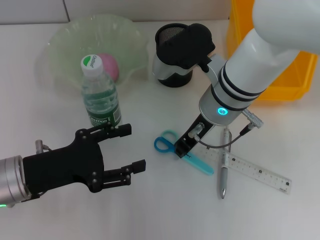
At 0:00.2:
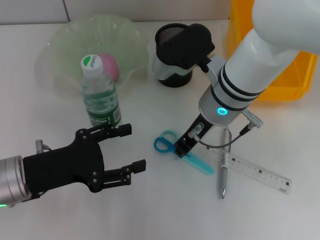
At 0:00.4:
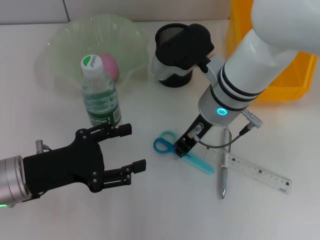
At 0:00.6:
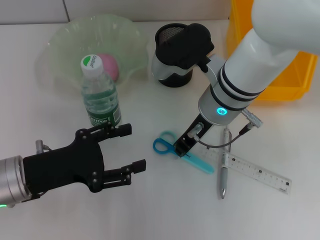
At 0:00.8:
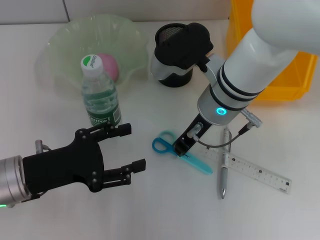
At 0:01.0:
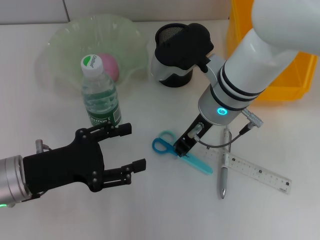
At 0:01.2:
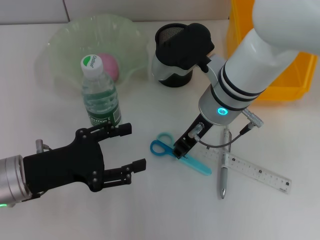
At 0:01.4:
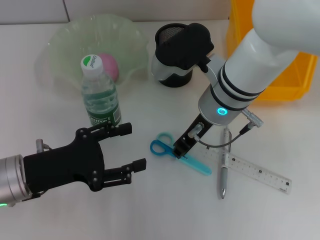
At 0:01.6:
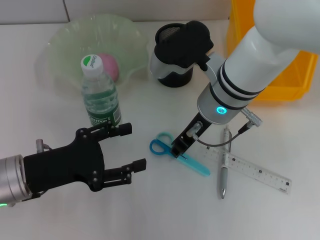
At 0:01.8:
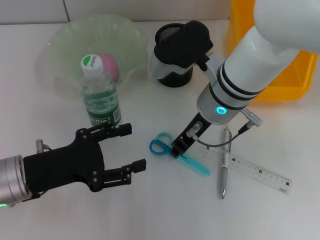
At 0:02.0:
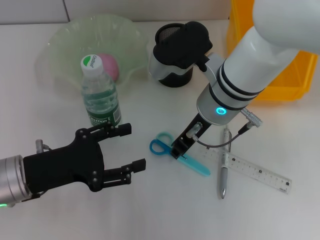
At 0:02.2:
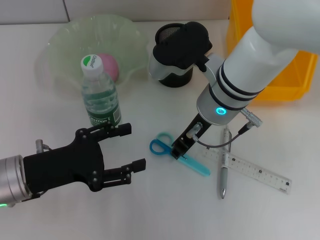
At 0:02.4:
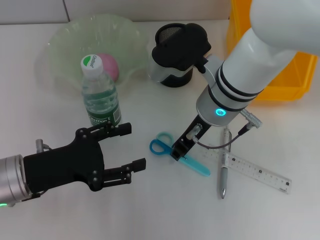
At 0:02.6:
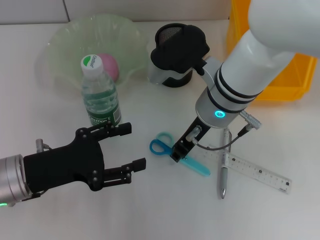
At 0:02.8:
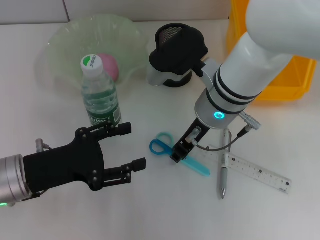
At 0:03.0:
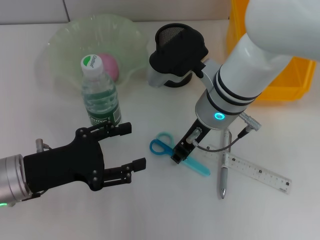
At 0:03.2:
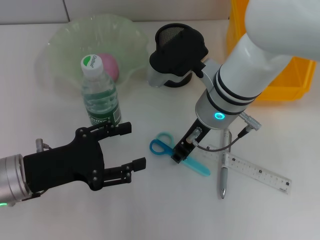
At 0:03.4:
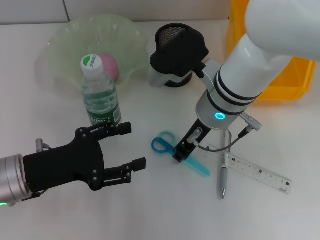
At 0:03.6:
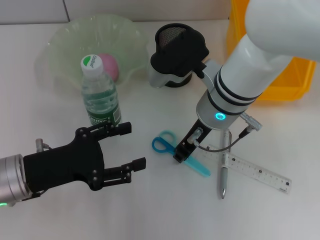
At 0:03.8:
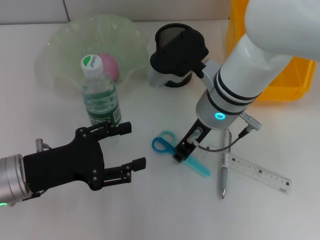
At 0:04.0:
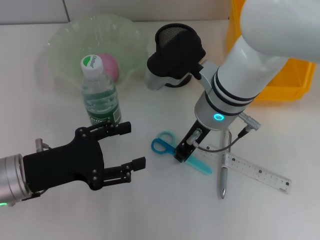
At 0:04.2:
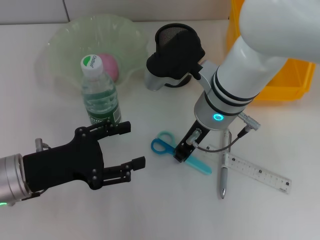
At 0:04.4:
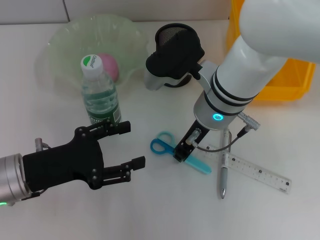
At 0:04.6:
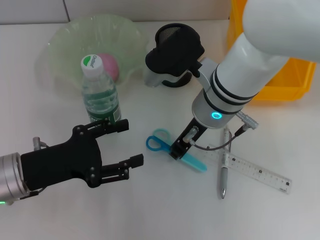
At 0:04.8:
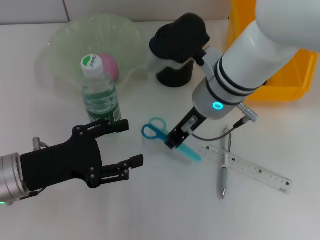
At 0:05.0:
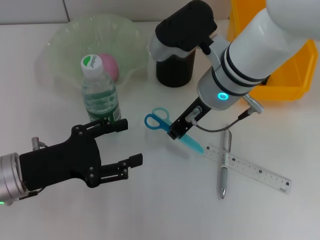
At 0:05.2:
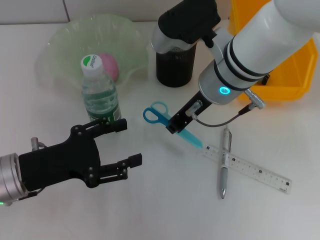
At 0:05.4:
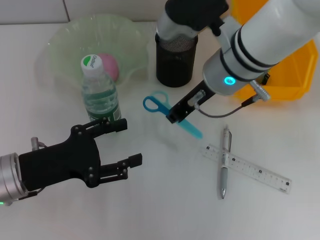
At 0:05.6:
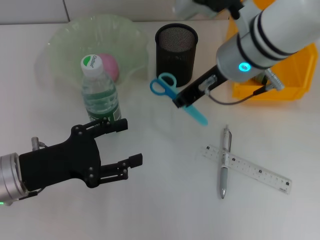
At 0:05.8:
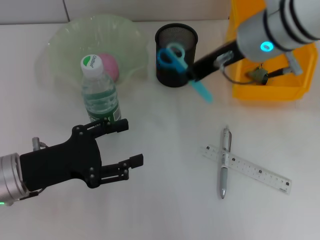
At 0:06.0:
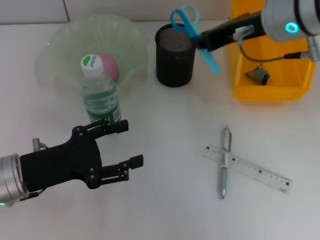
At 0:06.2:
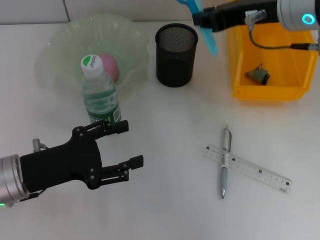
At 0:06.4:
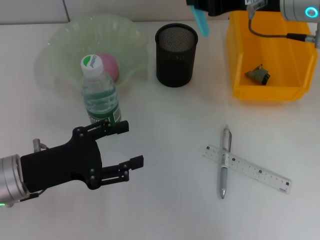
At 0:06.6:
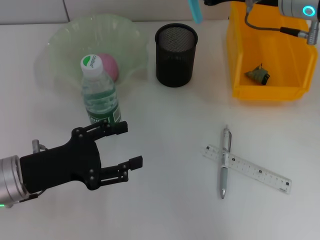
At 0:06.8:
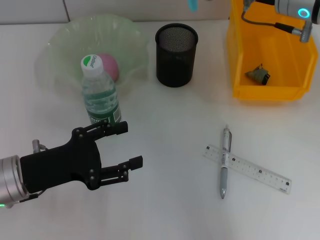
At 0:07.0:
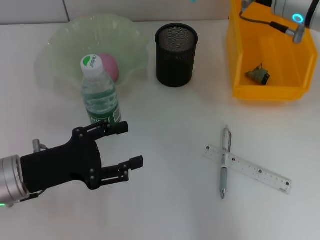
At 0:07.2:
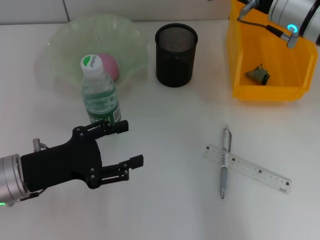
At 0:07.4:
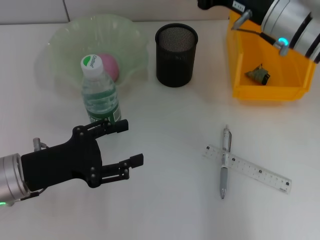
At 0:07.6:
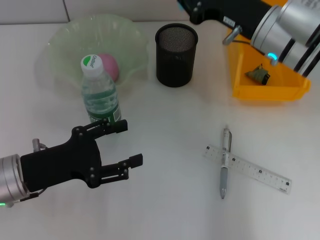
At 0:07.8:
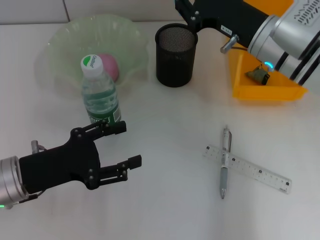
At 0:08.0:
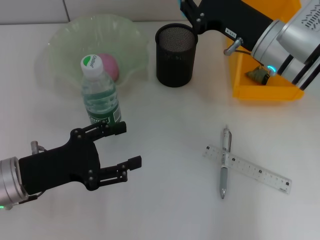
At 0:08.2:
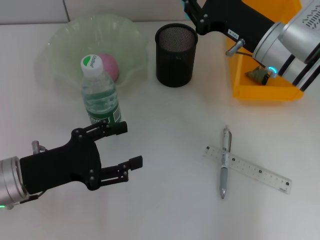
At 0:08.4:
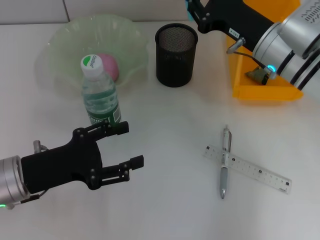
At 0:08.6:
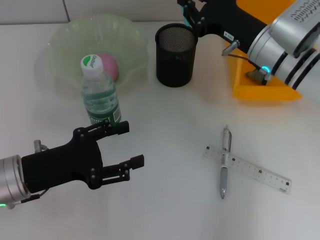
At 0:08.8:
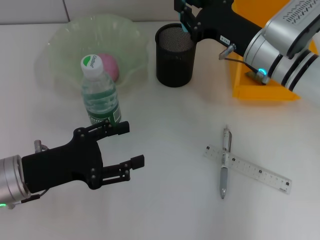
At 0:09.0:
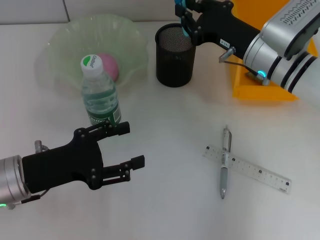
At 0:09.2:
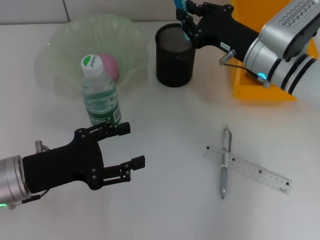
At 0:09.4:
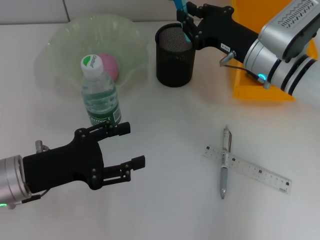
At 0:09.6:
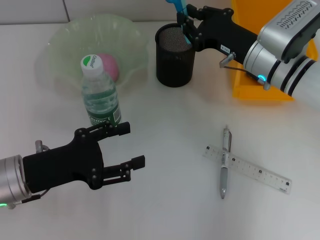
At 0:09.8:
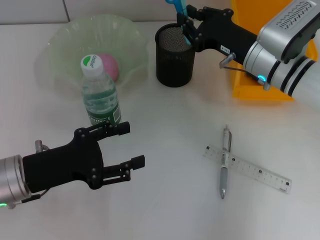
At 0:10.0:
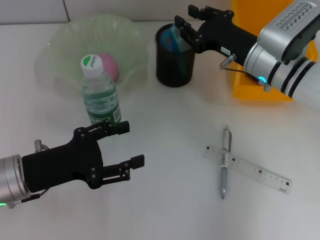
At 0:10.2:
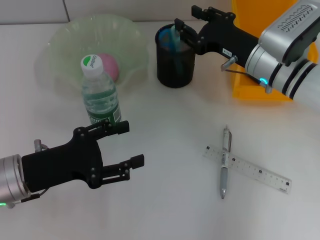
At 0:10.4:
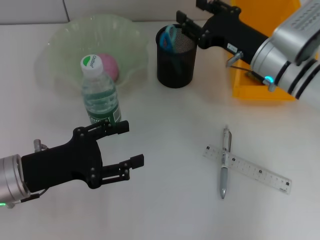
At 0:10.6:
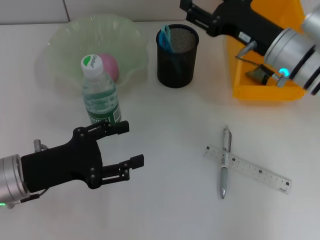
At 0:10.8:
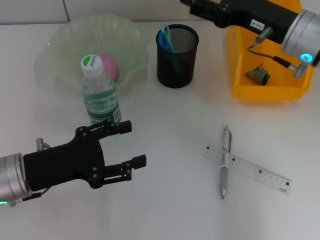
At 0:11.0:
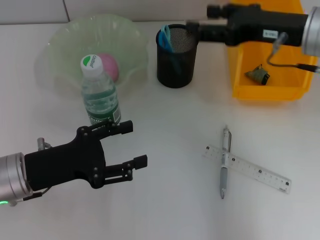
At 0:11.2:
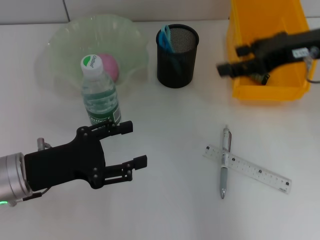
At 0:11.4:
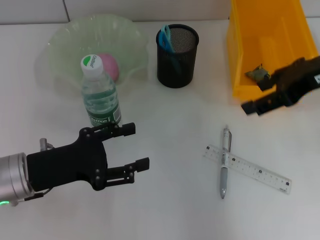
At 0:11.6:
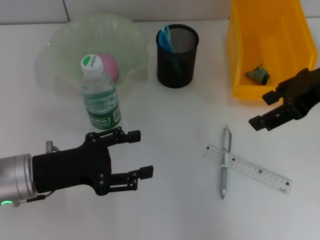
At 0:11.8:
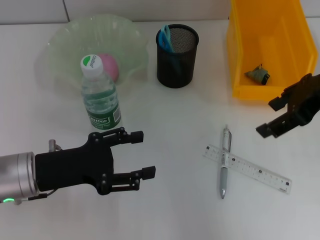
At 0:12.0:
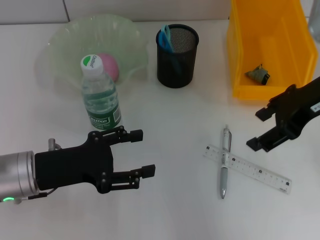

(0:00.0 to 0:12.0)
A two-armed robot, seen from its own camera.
Step, 0:00.0 - 0:03.8: Grab the blue scissors with the right hand.
Step, 0:04.2 - 0:10.4: Place the blue scissors into the pen holder with the right hand.
0:00.0 - 0:03.0: The two grippers keep their place.
0:03.0 - 0:04.4: Neither gripper changes place.
0:04.4 - 0:06.0: The right gripper is displaced upward and to the right by some 15 cm.
0:06.0 - 0:07.6: The right gripper travels downward by roughly 10 cm.
0:07.6 - 0:09.0: The right gripper ends up some 5 cm from where it was.
0:09.0 - 0:10.4: The right gripper opens up.
0:10.4 - 0:12.0: The right gripper moves upward and backward, about 15 cm, and opens.

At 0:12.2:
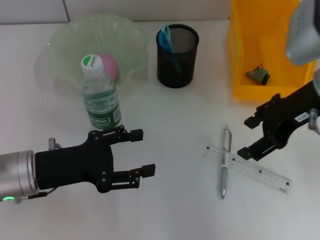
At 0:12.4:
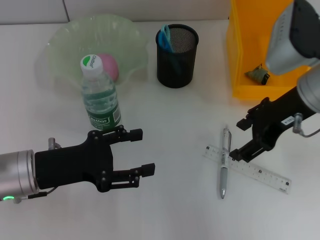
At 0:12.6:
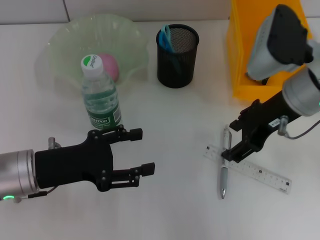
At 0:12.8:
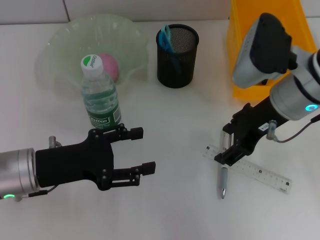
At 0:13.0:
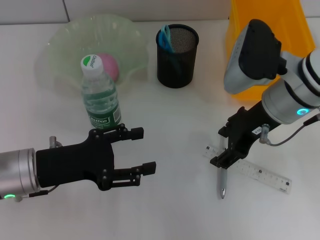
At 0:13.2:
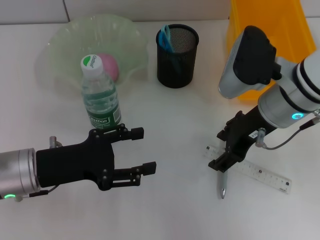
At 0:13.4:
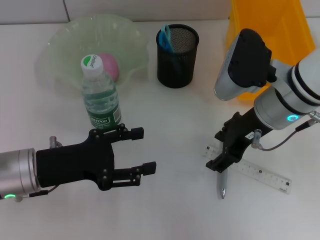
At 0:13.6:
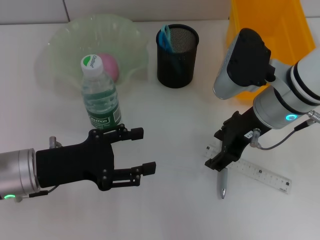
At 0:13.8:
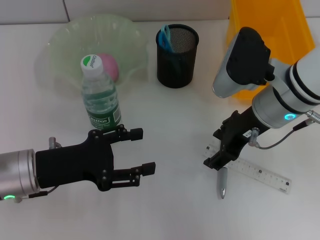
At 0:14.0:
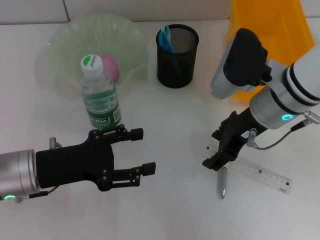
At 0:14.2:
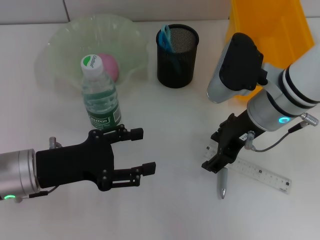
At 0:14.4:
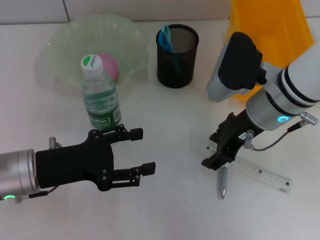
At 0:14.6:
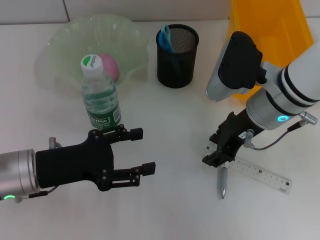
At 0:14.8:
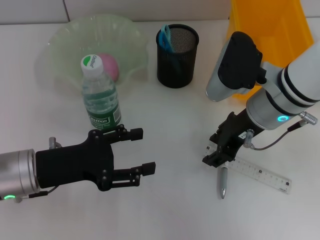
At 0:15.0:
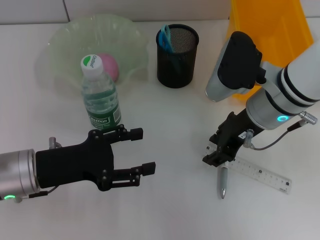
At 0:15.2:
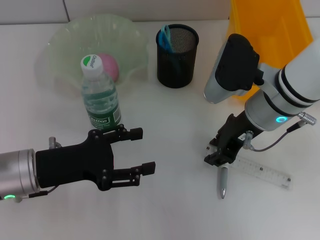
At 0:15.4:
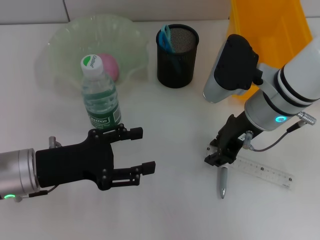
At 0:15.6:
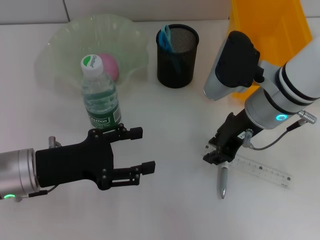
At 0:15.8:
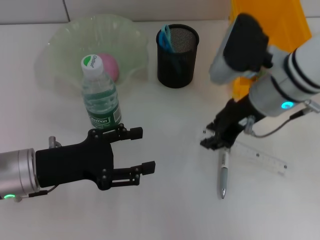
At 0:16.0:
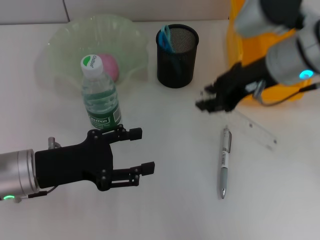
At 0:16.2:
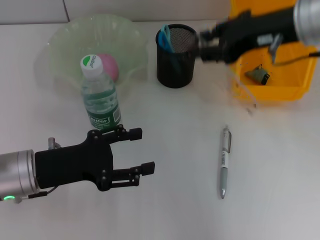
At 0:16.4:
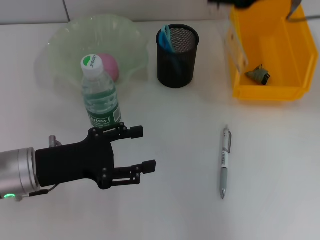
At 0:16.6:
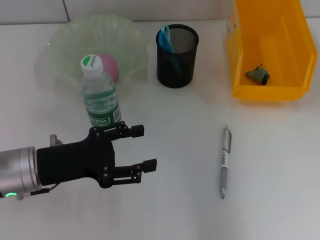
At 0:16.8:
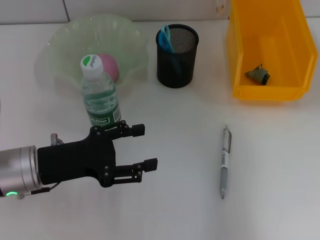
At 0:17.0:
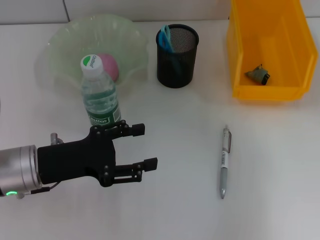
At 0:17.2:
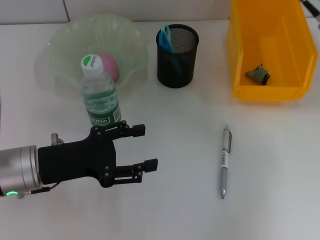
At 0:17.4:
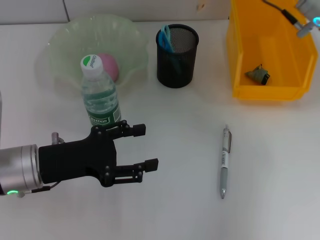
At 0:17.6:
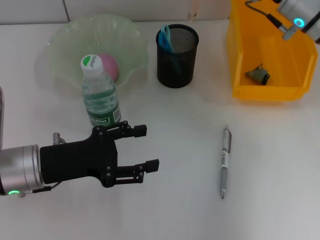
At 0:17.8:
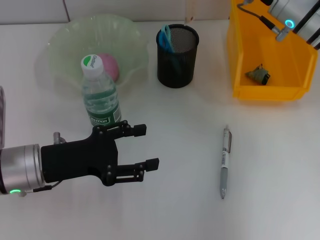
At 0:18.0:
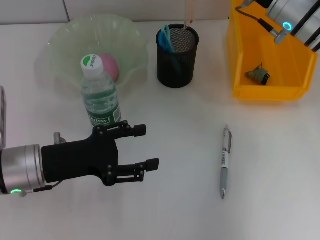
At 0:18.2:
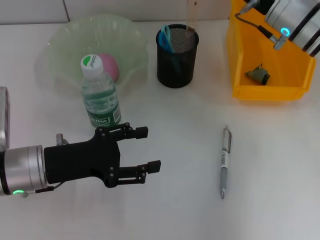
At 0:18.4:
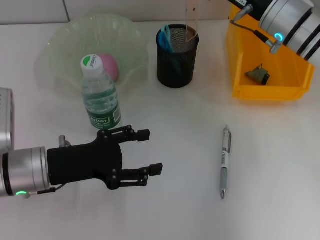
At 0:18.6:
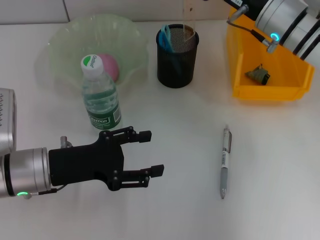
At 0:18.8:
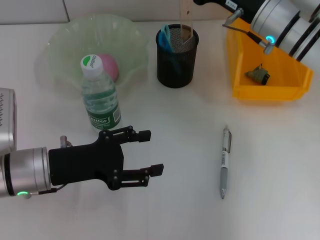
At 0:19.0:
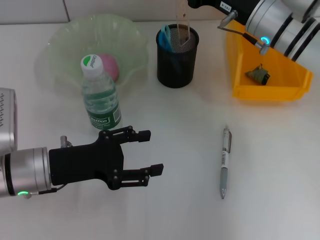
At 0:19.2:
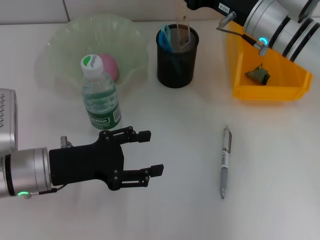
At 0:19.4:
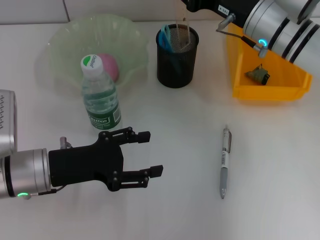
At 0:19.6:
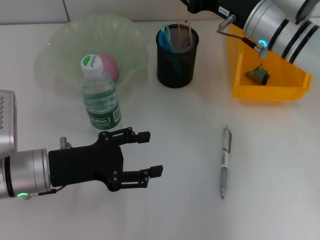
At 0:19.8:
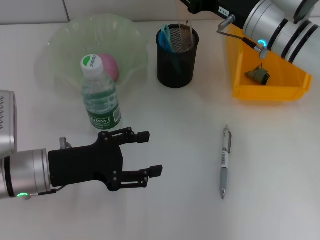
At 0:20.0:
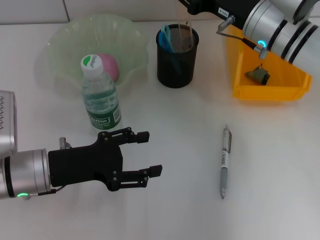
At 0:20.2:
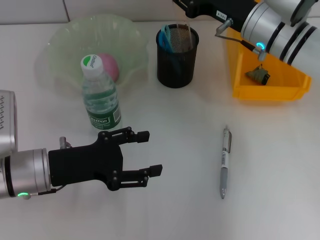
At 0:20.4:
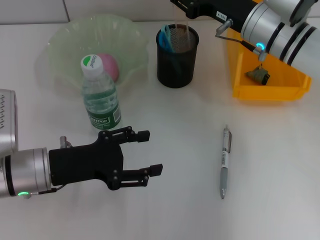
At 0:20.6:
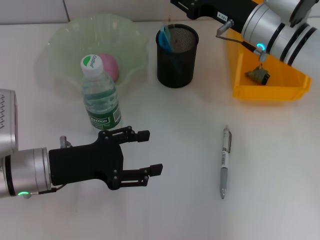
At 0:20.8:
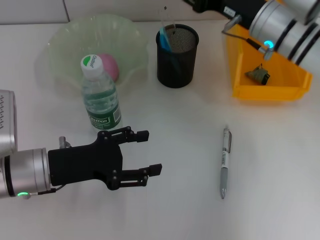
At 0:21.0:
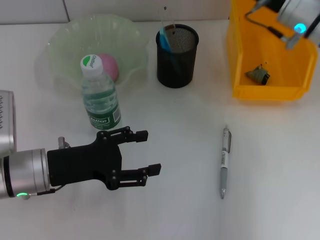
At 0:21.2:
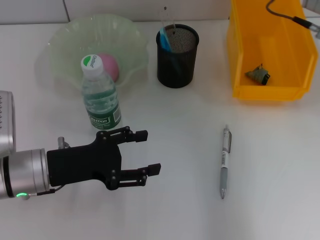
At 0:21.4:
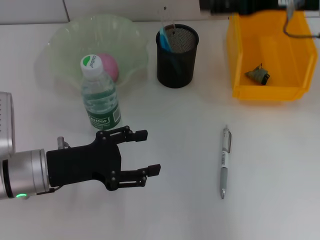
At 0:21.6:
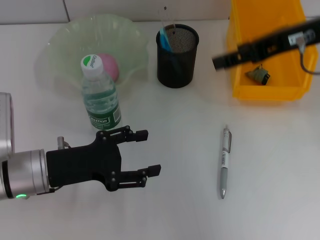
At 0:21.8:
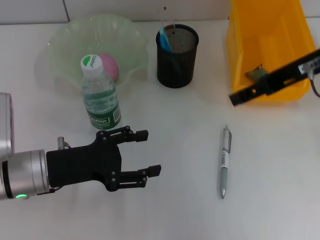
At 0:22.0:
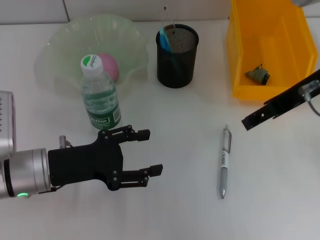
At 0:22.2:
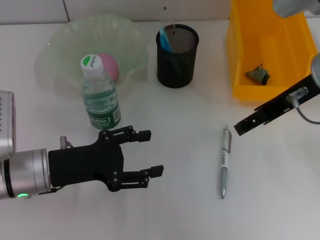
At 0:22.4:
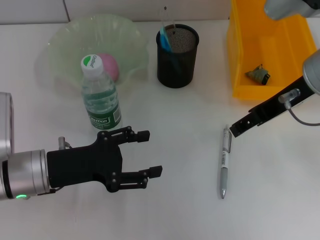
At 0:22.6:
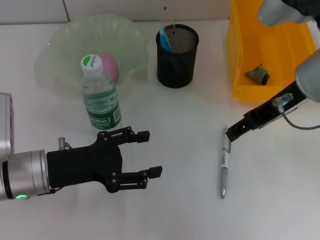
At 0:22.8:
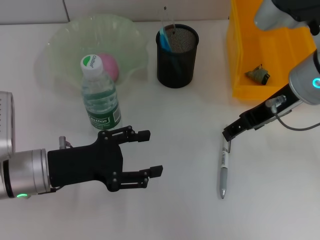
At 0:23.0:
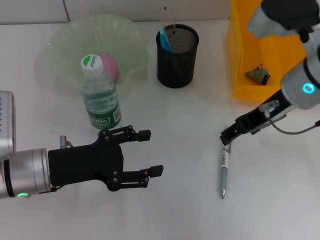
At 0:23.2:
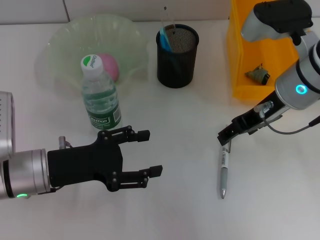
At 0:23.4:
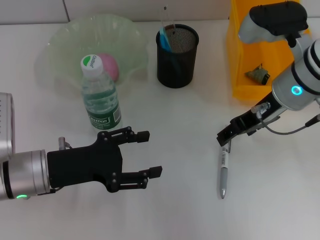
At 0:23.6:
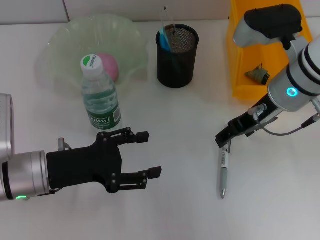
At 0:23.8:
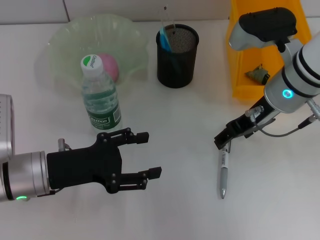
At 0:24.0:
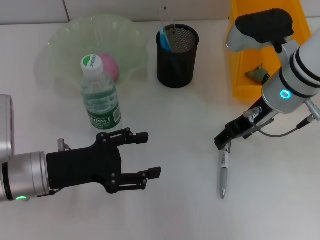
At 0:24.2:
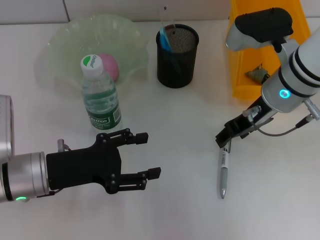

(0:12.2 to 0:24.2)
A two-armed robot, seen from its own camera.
Step, 0:12.2 - 0:15.2: Grab the ruler with the right hand.
Step, 0:15.4 - 0:20.8: Place the ruler into the pen holder with the right hand.
0:12.2 - 0:13.8: The right gripper goes roughly 10 cm to the left and downward.
0:13.8 - 0:15.2: The right gripper closes up.
0:15.2 - 0:16.6: The right gripper shifts about 15 cm upward and to the right.
0:16.6 - 0:18.2: The right gripper shifts roughly 15 cm downward.
0:18.2 - 0:19.8: The grippers stay close to where they were, moving slightly.
0:19.8 - 0:21.2: The right gripper is displaced upward and to the right by about 10 cm, and opens up.
0:21.2 - 0:22.6: The right gripper heads backward, covering about 5 cm.
0:22.6 - 0:24.2: The right gripper goes roughly 5 cm downward.
